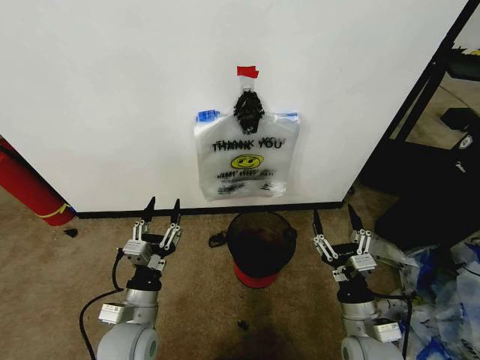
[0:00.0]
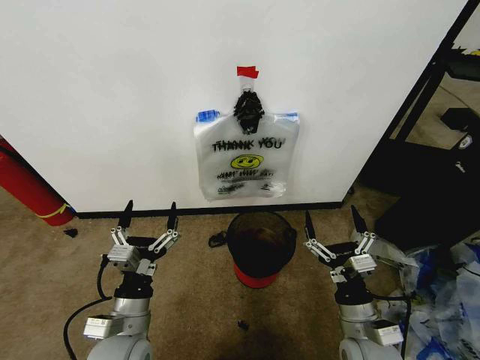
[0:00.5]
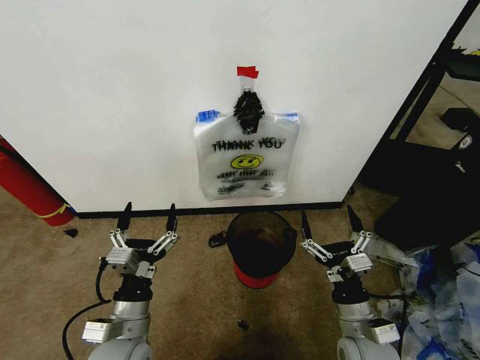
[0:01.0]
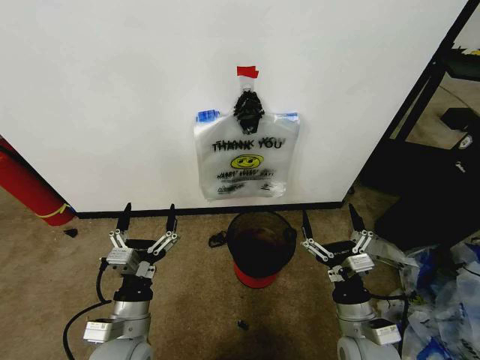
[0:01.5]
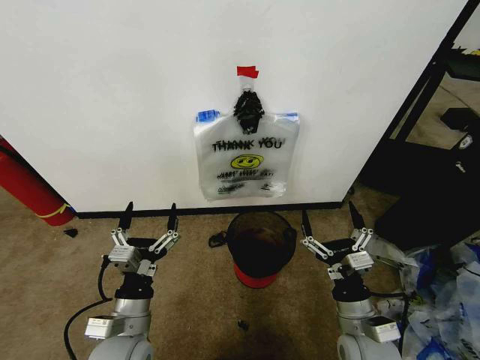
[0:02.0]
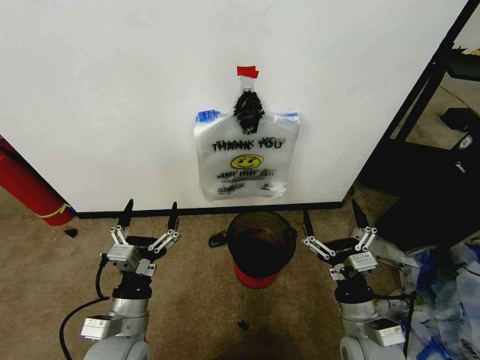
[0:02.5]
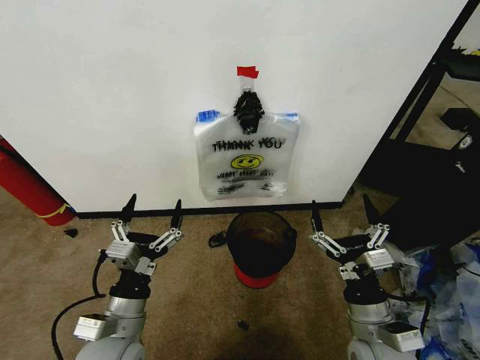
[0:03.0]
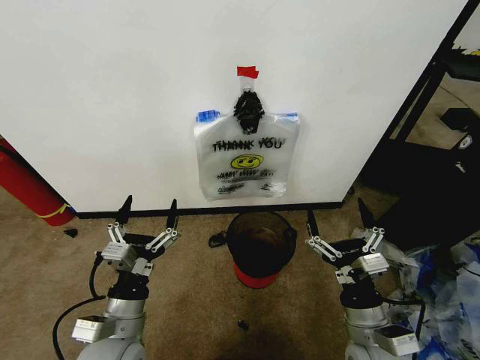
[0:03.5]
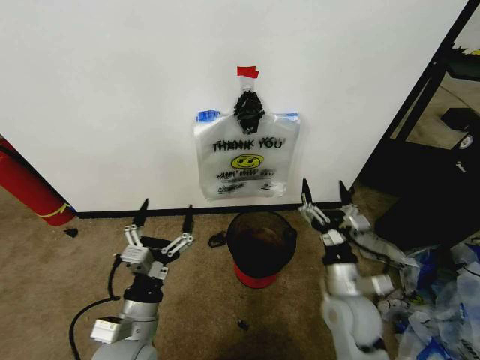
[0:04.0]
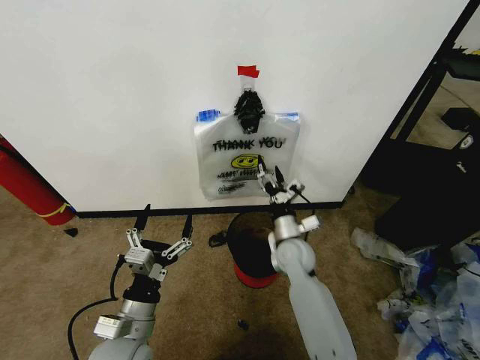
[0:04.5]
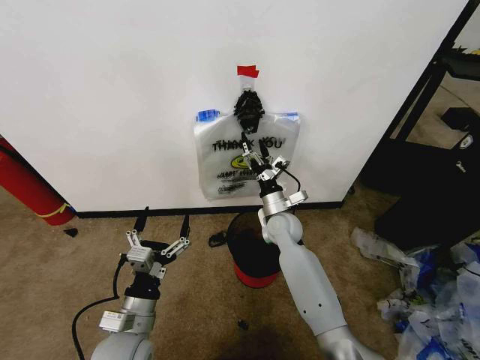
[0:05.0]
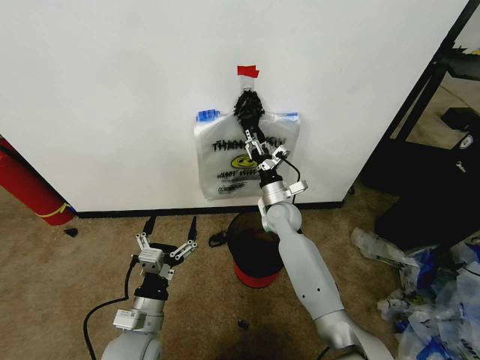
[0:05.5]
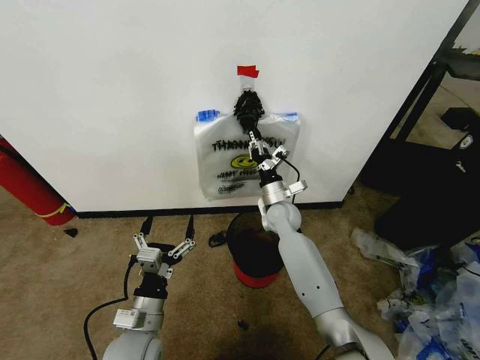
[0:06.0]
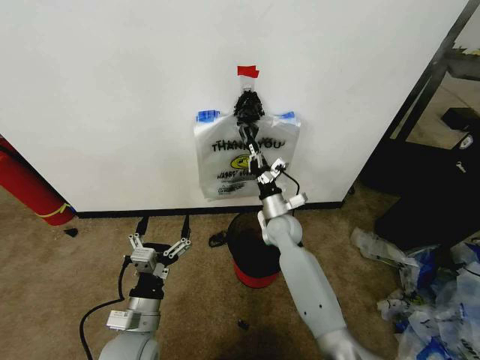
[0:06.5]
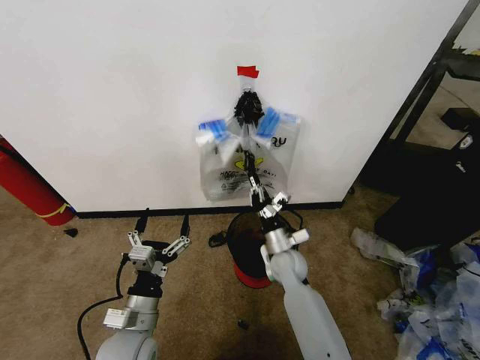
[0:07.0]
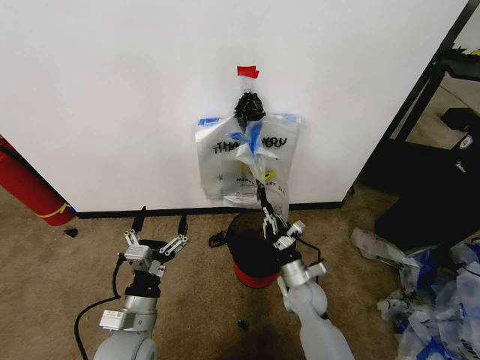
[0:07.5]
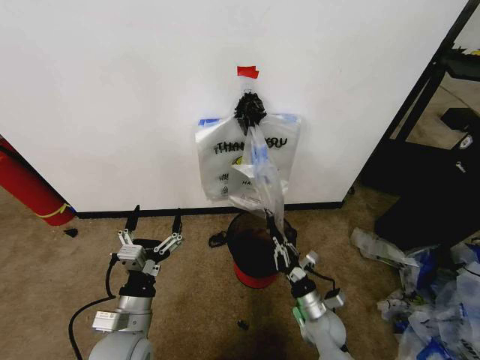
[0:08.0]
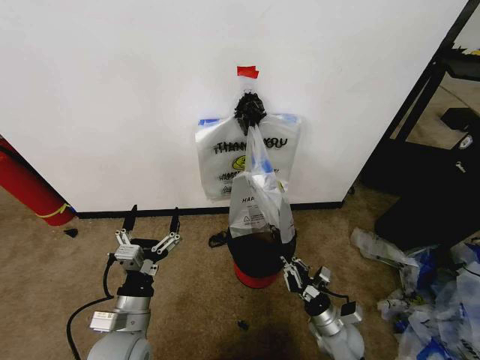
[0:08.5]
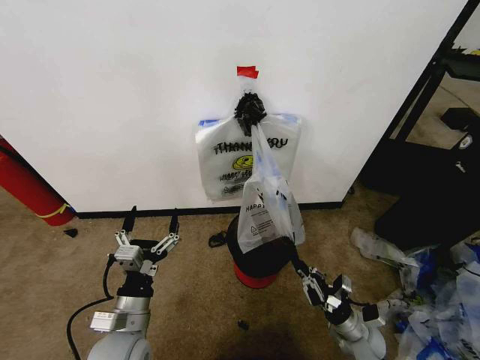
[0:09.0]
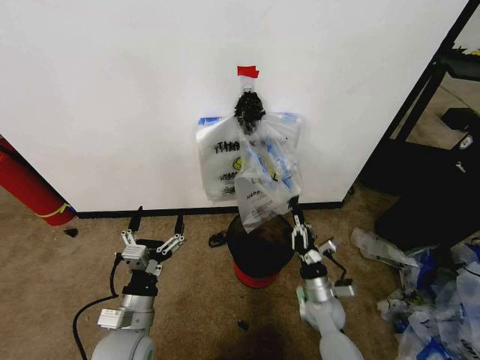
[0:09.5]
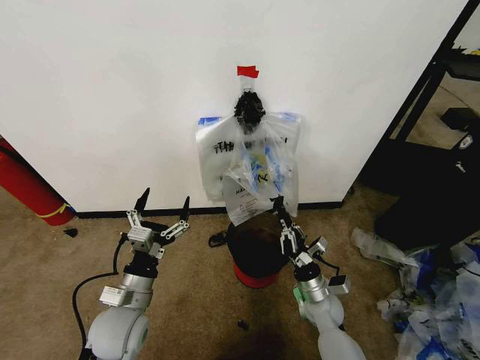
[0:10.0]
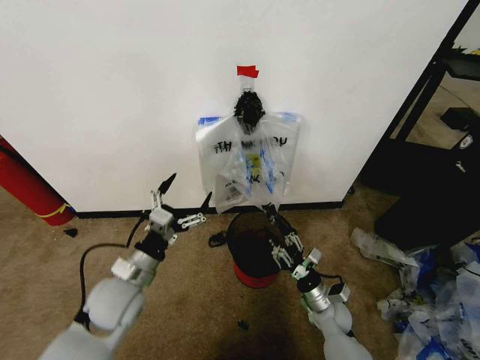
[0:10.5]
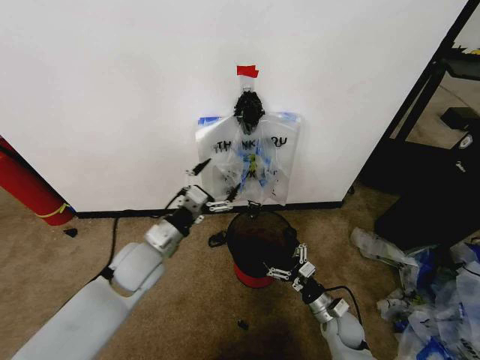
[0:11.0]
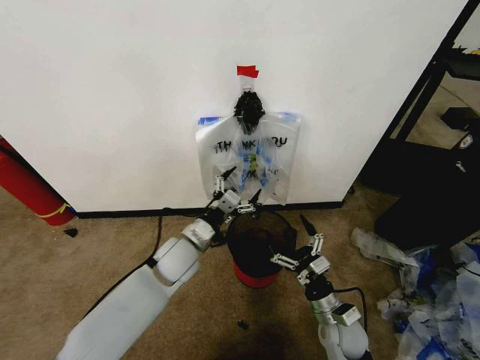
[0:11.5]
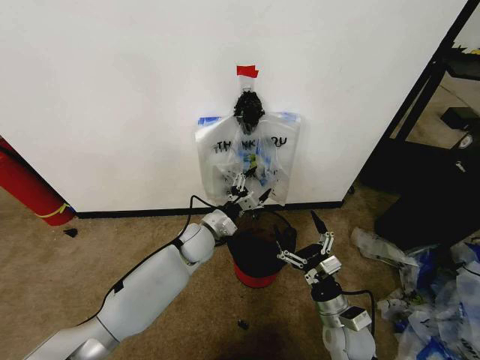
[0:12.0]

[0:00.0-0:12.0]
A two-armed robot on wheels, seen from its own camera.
Task of the whole recording: Pick up the garbage bag from the wall and place it over the trash bin.
0:02.0 to 0:04.0: The right gripper goes about 5 cm forward.
0:04.0 to 0:06.0: The right gripper shifts about 25 cm forward, and closes.
0:06.0 to 0:08.0: The right gripper travels backward, downward and to the right by about 30 cm.
0:08.0 to 0:10.0: The right gripper goes to the right and returns, about 10 cm each way.
0:10.0 to 0:12.0: The right gripper travels backward and upward by some 10 cm, and opens its fingers. The left gripper moves forward and to the right, approximately 25 cm.

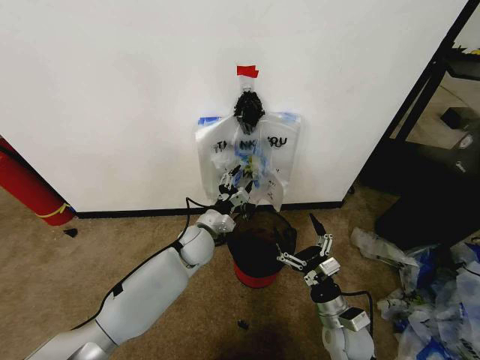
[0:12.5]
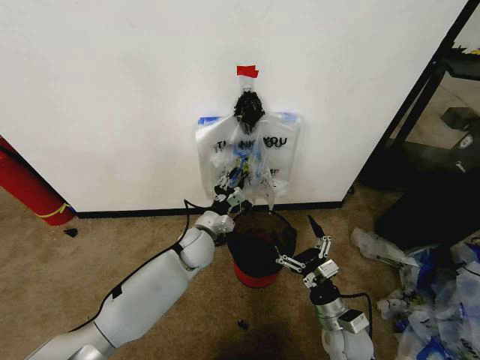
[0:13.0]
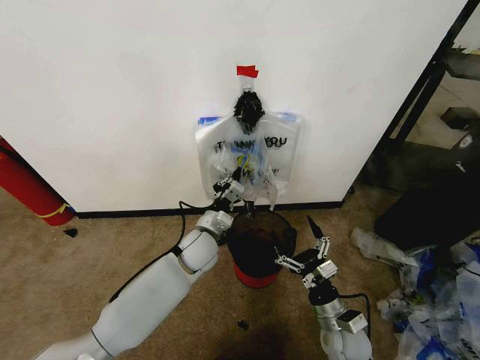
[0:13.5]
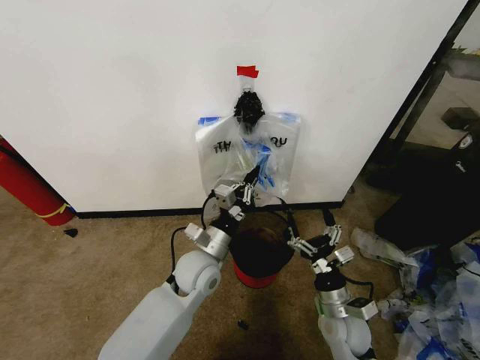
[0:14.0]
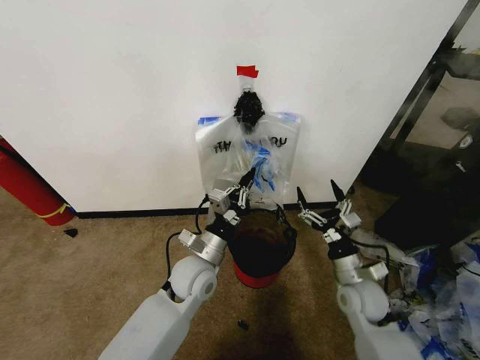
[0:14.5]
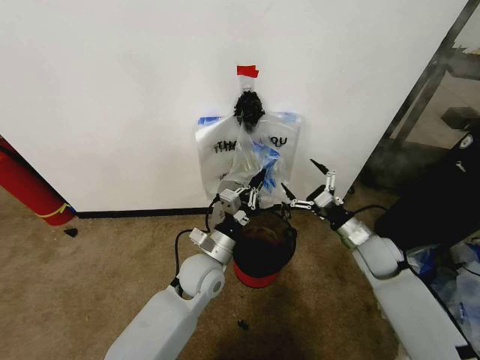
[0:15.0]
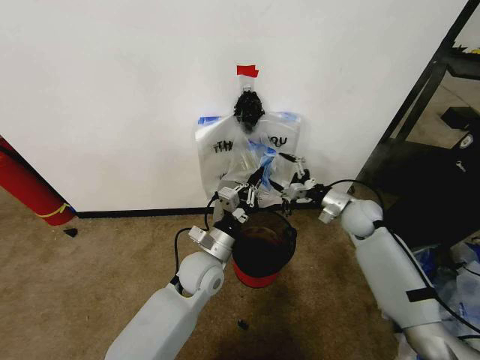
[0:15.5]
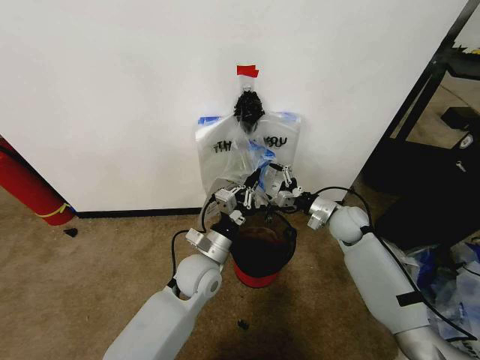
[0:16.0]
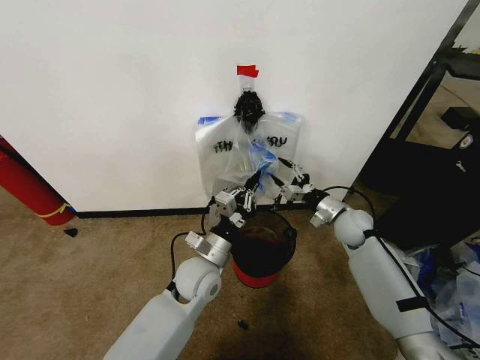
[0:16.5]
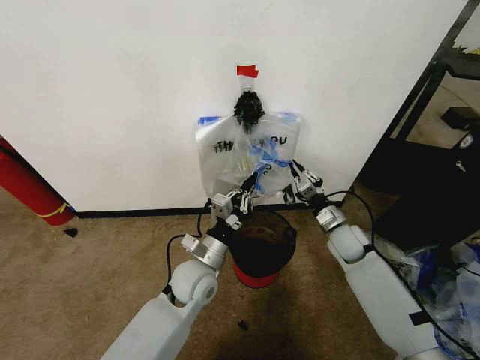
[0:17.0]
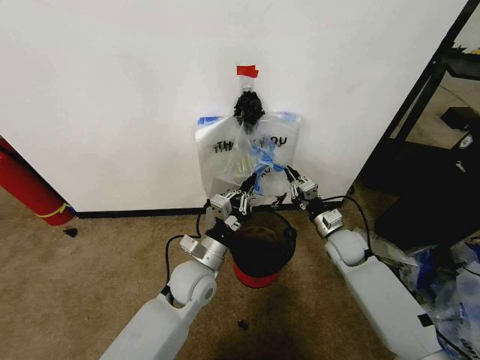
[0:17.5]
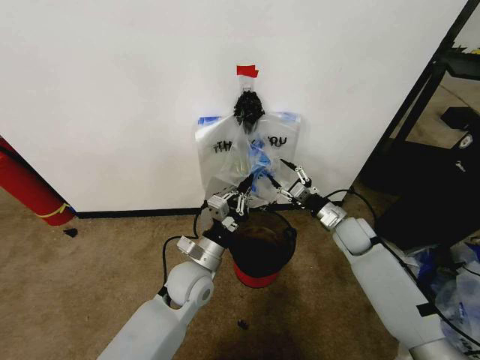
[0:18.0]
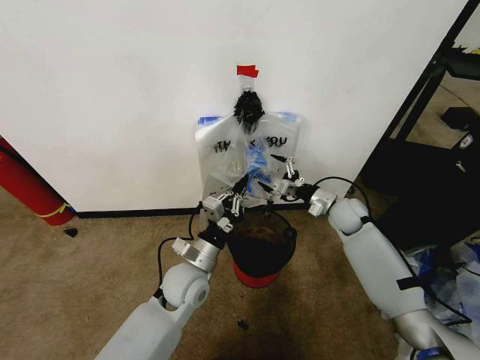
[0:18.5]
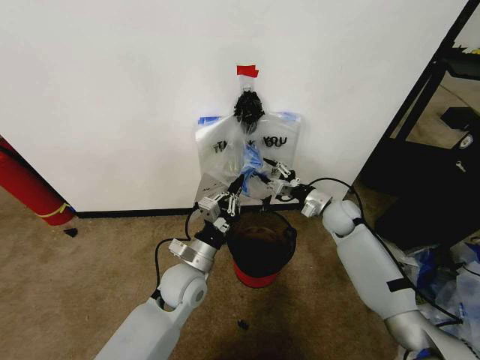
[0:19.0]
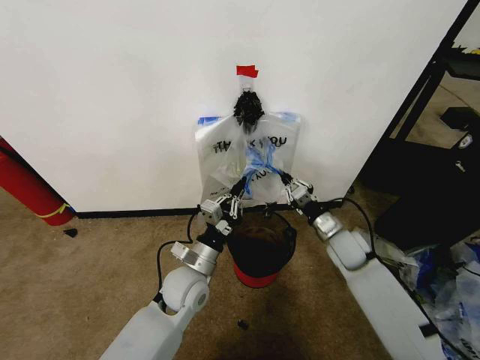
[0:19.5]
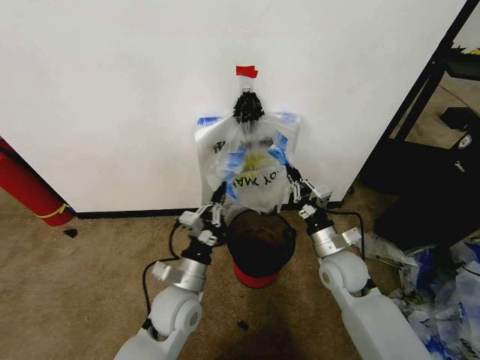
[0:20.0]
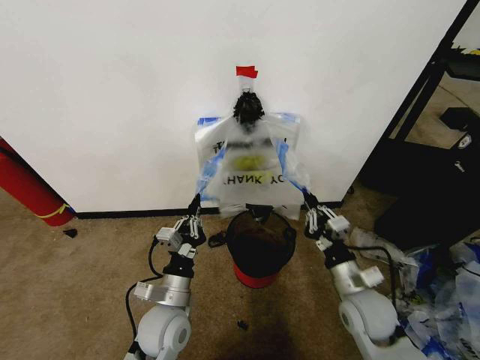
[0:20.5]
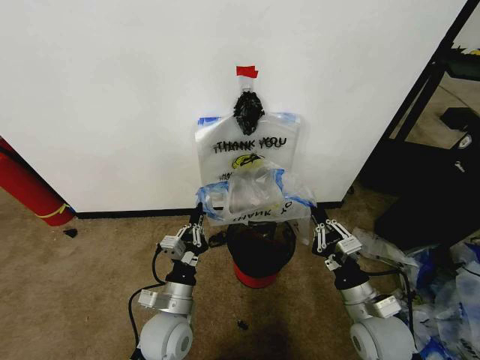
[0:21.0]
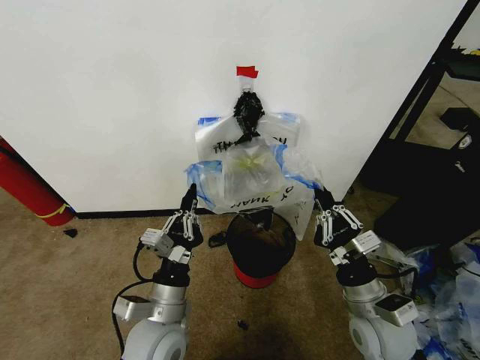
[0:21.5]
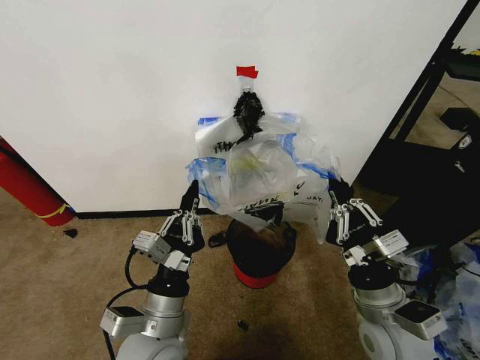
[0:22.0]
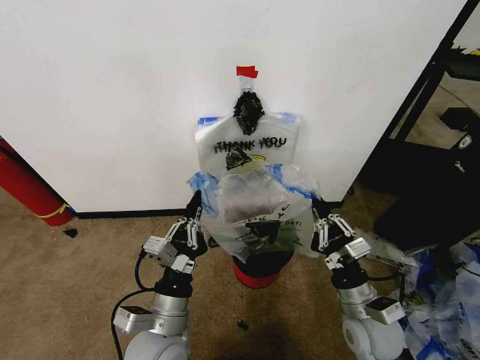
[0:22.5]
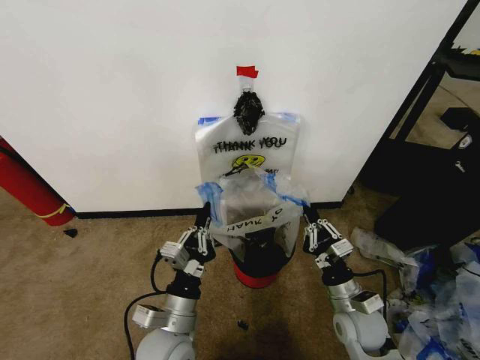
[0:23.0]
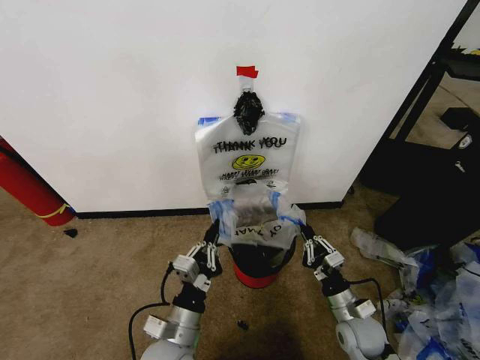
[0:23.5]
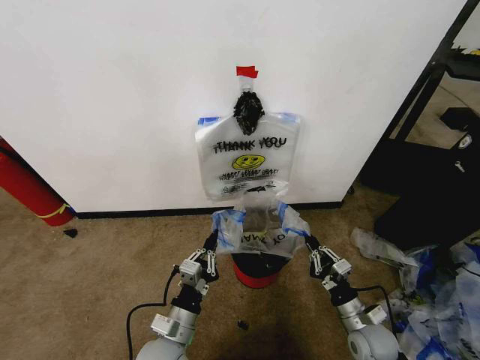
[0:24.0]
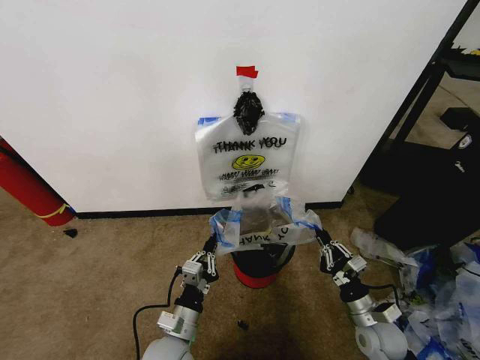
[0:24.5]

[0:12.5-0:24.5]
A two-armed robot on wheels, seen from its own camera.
Task of the whole recording: Pick up the garbage bag from the wall and place it over the trash bin.
0:12.5 to 0:14.5: The right gripper heads forward and upward, covering about 10 cm. Meanwhile the left gripper is displaced backward by some 10 cm, and closes.
0:14.5 to 0:16.5: The right gripper travels forward by roughly 15 cm, and closes its fingers.
0:16.5 to 0:18.5: The right gripper opens up.
0:18.5 to 0:20.5: The left gripper travels backward by some 10 cm; the right gripper shifts some 25 cm backward, and closes.
0:20.5 to 0:22.5: The left gripper heads backward and upward, covering roughly 10 cm.
0:22.5 to 0:24.5: The left gripper heads downward, covering roughly 10 cm; the right gripper moves downward and to the right, some 15 cm.

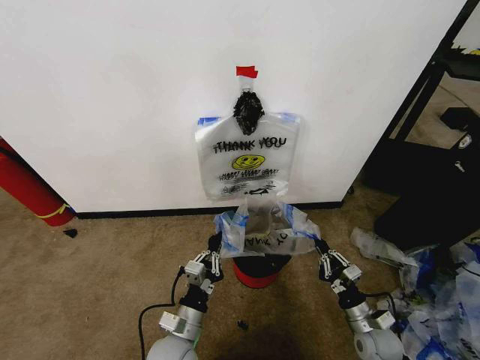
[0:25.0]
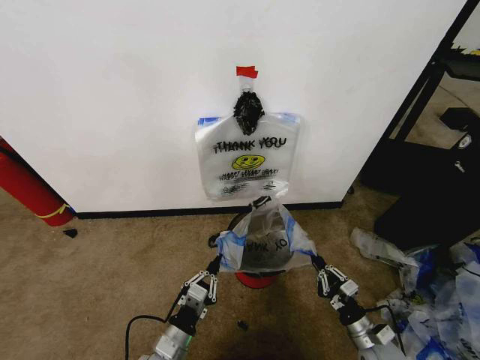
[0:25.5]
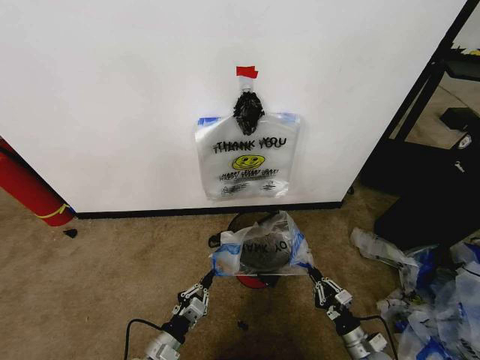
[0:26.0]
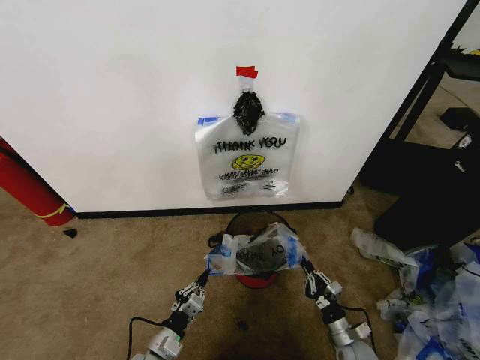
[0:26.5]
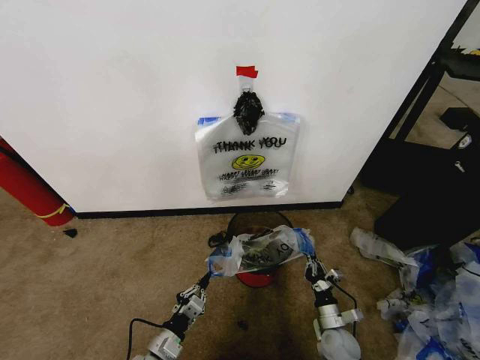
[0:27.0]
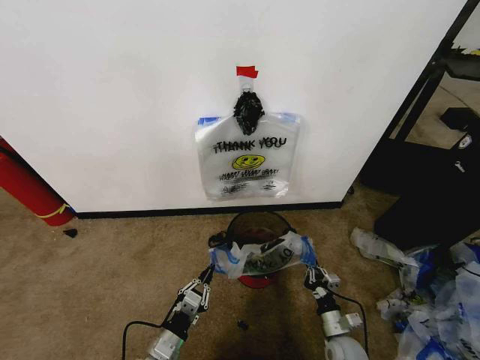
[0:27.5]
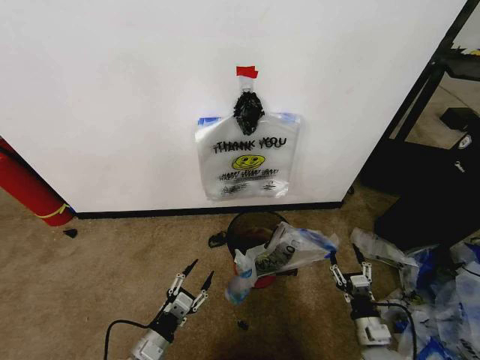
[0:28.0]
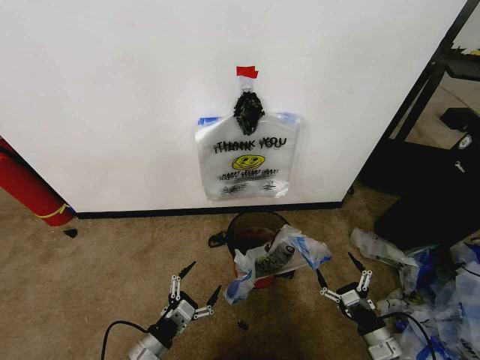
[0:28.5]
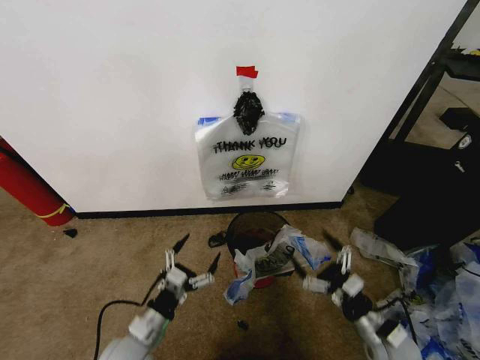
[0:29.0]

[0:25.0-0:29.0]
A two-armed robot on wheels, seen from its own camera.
Task of the whole recording: Pick up the garbage bag from the wall and place it over the trash bin.
0:25.0 to 0:27.0: Both grippers travel together downward and to the left, some 10 cm.
0:27.0 to 0:29.0: The two grippers go approximately 10 cm upward. The right gripper opens, while the left gripper opens its fingers.
